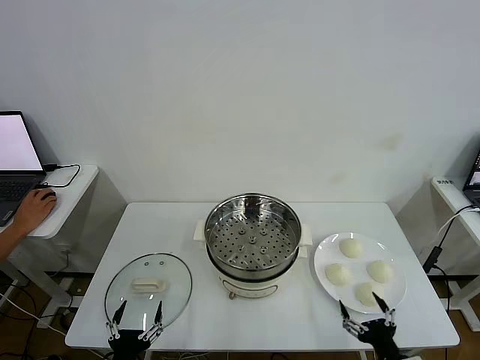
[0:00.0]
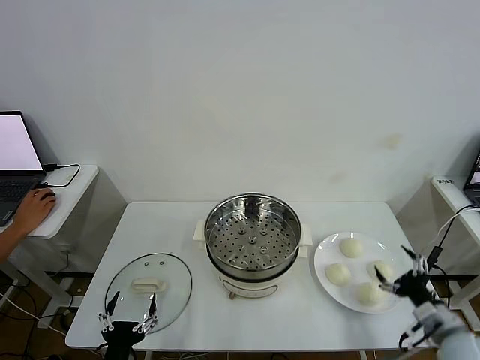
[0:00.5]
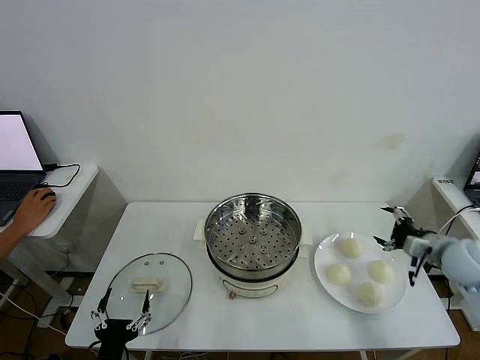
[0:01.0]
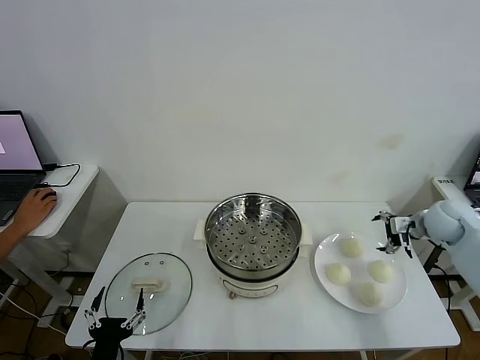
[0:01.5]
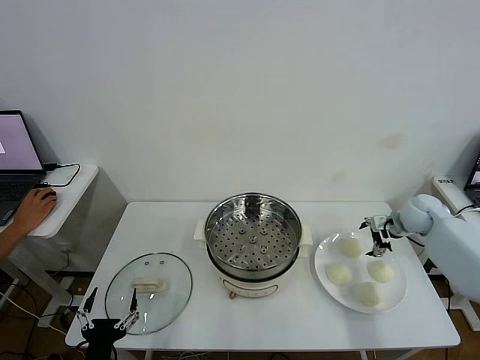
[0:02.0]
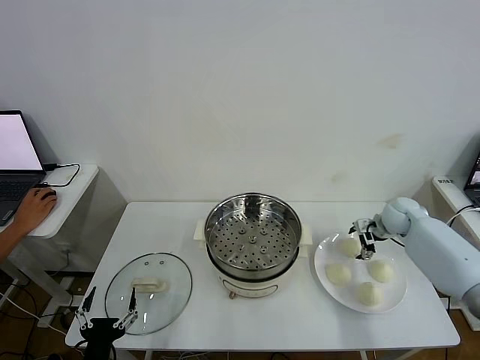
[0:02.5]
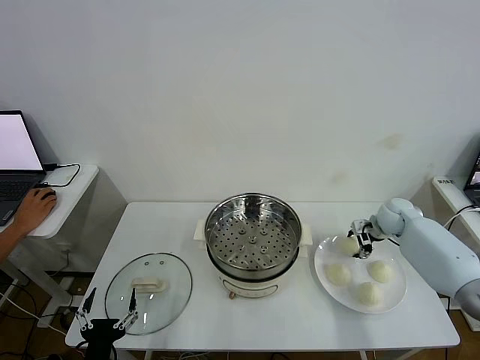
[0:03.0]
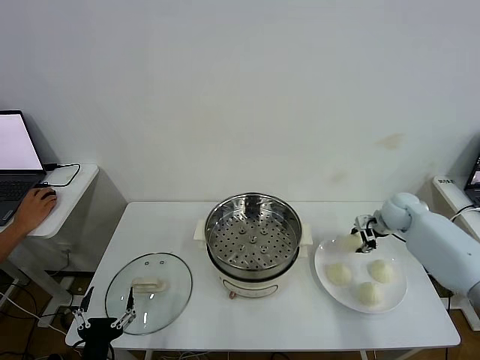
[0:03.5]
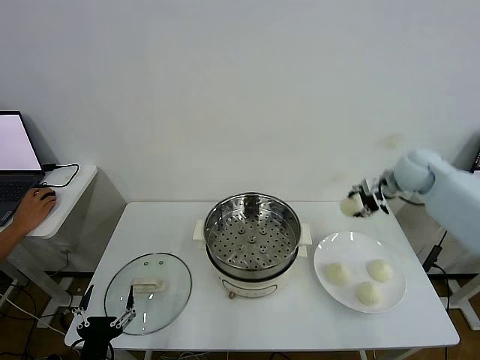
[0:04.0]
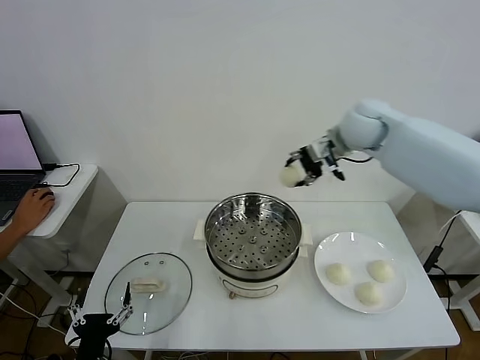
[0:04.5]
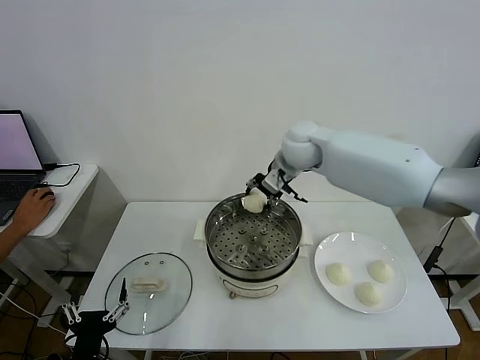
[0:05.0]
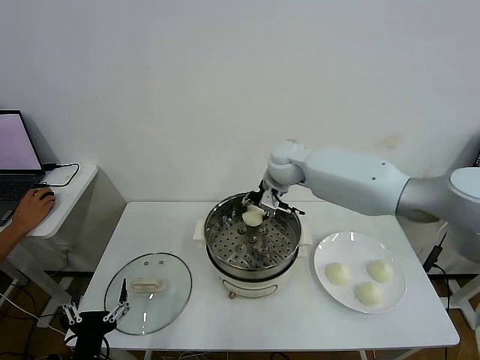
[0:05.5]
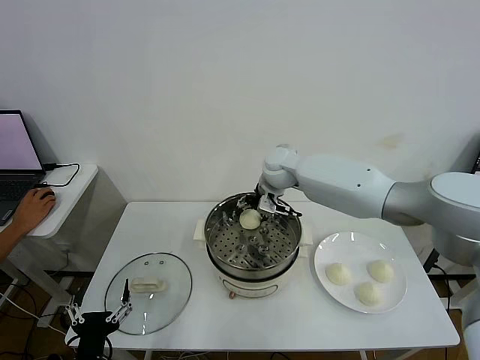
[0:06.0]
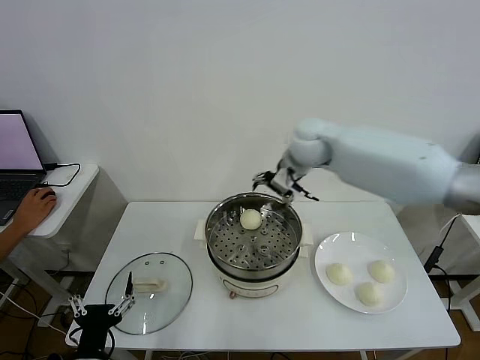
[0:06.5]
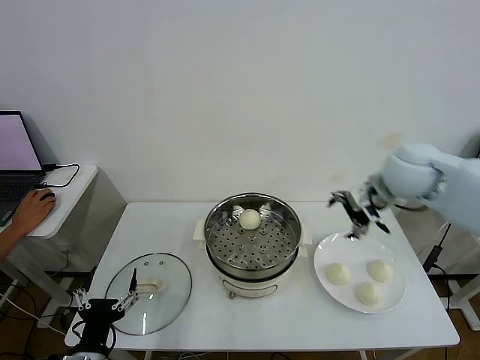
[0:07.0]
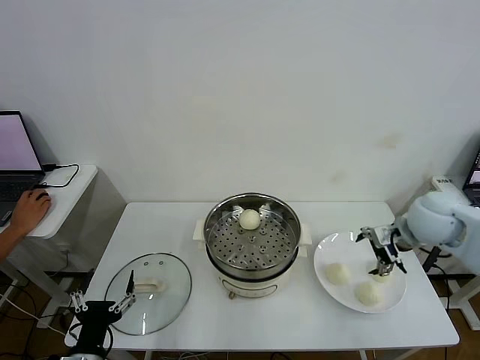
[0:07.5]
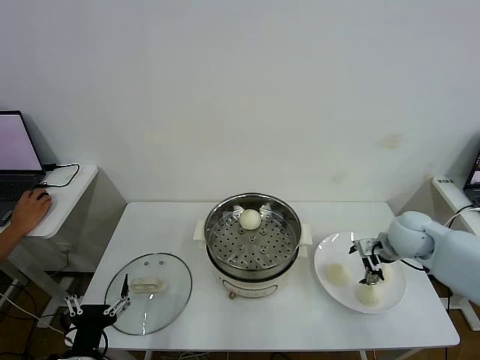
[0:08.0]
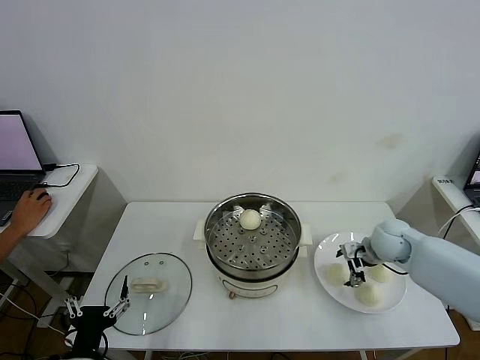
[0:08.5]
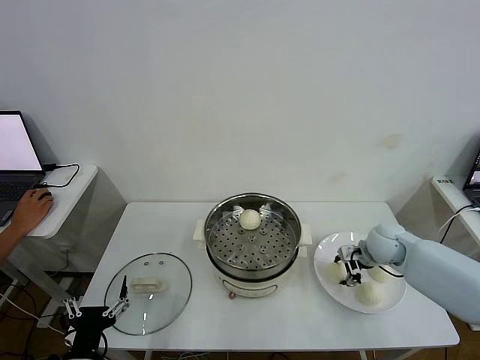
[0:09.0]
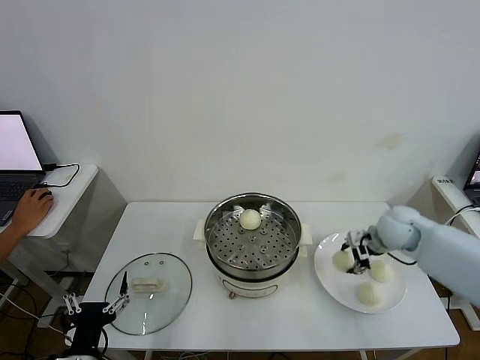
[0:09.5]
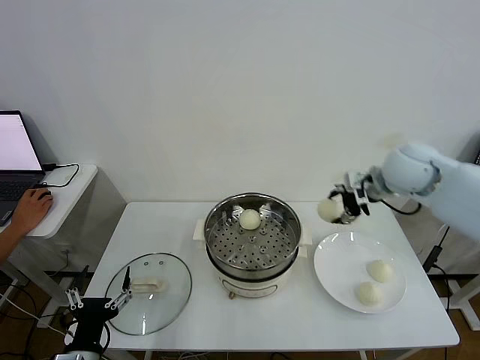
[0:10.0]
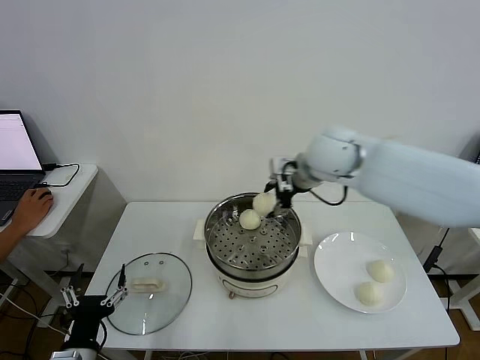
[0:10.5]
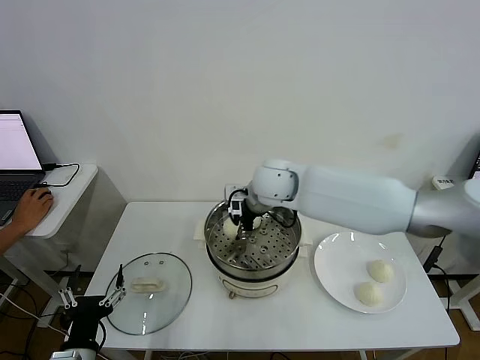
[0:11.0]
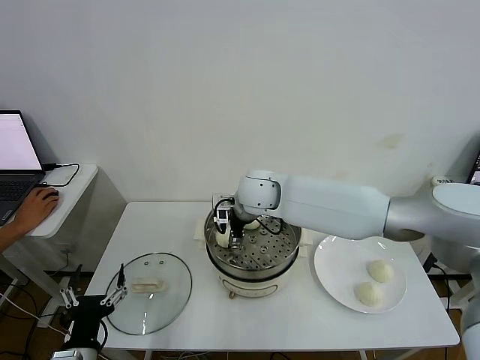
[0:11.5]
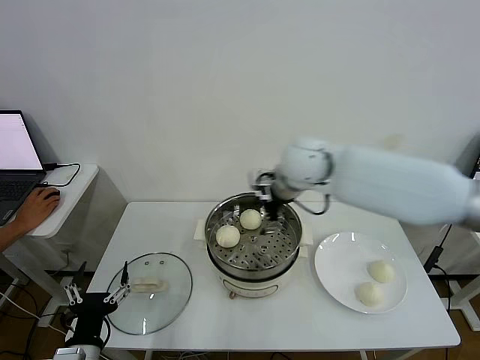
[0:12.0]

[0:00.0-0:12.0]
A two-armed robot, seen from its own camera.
Step, 0:00.0 to 0:03.0: Grasp the baozi in the plate with right gripper.
Step, 0:03.5 to 0:06.0: Place the baozi on the steamer with right gripper.
Step, 0:06.5 to 0:09.0: Grasp the baozi in the plate with right gripper.
Step, 0:09.5 to 0:11.5: Place the baozi on the steamer with right gripper.
0:02.0 to 0:04.0: The right gripper travels upward and to the left by roughly 20 cm, and closes its fingers.
0:04.0 to 0:06.0: The right gripper heads to the left, covering some 25 cm, and opens up.
0:06.0 to 0:08.0: The right gripper shifts some 30 cm to the right and backward.
0:08.0 to 0:10.0: The right gripper goes approximately 20 cm upward and to the left, and closes up.
0:10.0 to 0:12.0: The right gripper goes some 10 cm to the left, and opens.

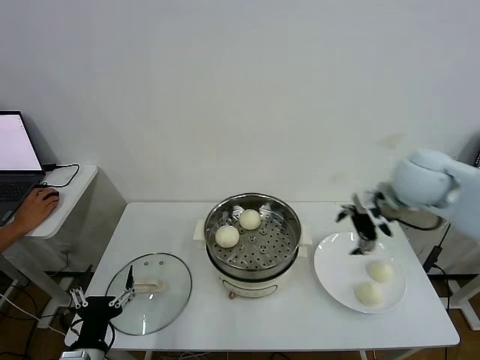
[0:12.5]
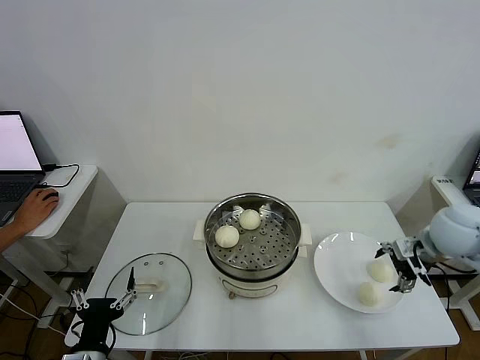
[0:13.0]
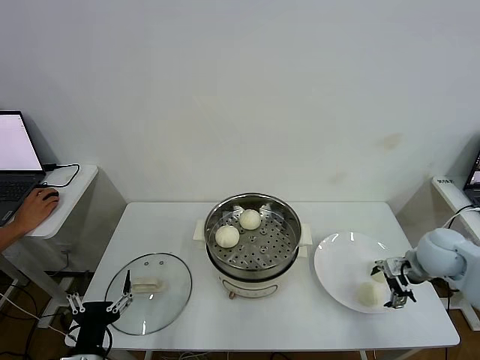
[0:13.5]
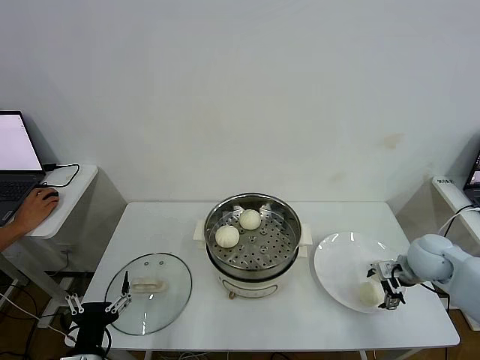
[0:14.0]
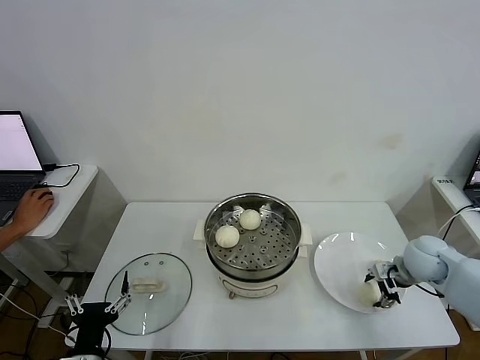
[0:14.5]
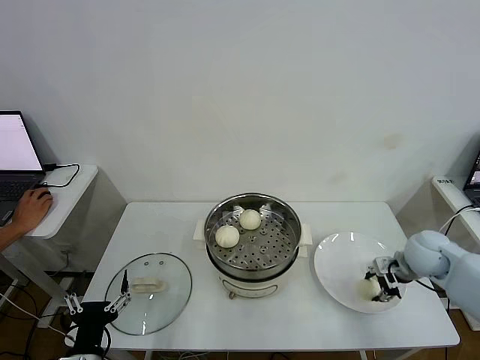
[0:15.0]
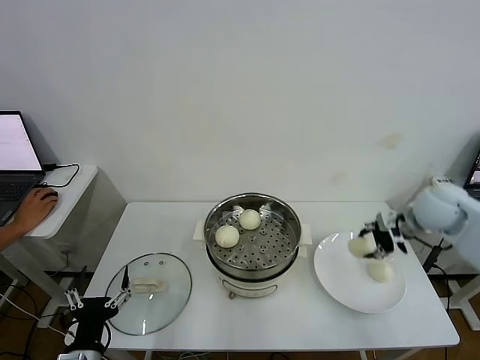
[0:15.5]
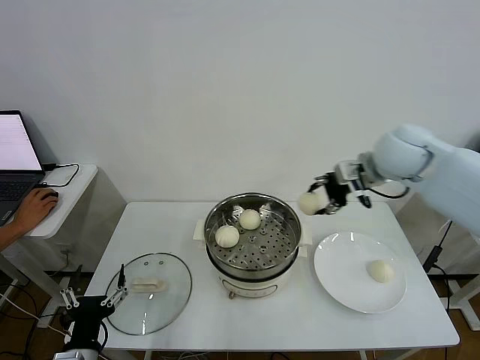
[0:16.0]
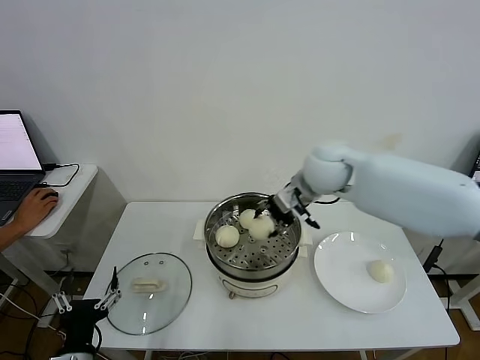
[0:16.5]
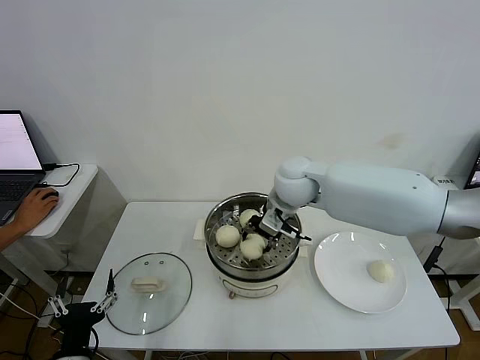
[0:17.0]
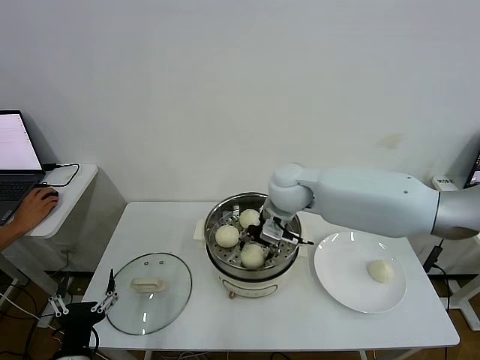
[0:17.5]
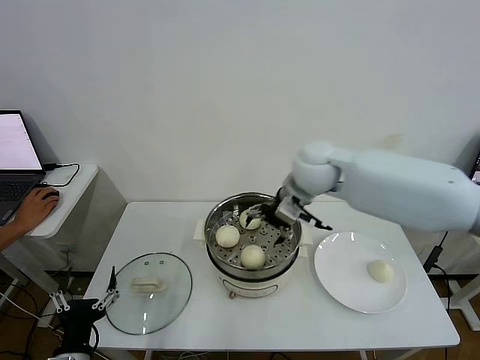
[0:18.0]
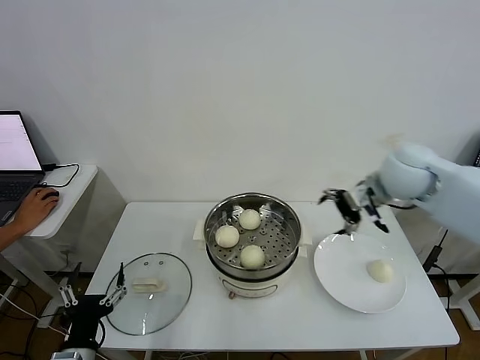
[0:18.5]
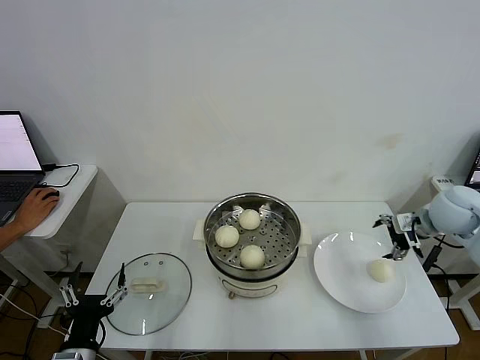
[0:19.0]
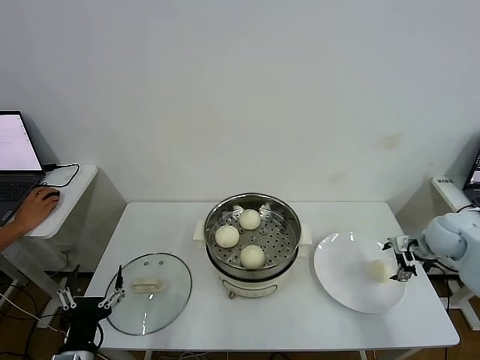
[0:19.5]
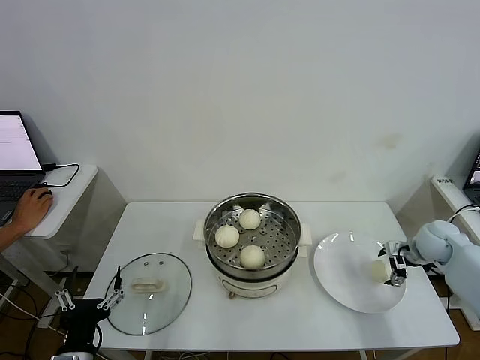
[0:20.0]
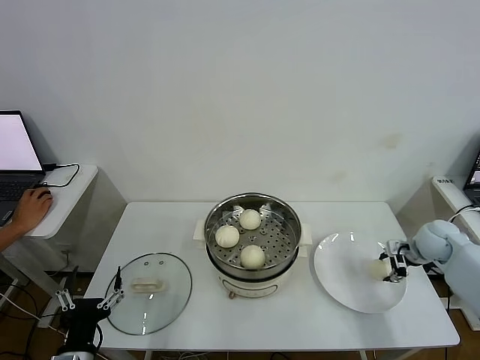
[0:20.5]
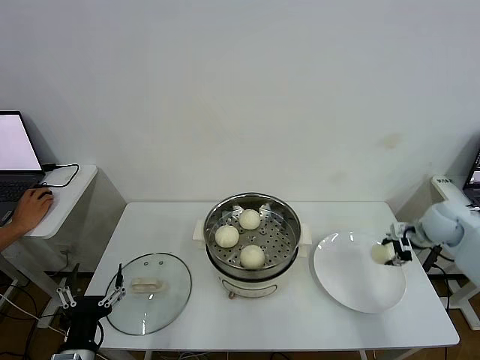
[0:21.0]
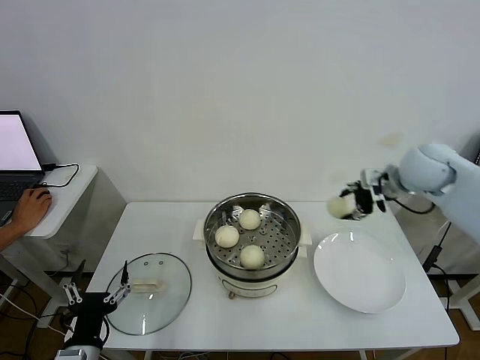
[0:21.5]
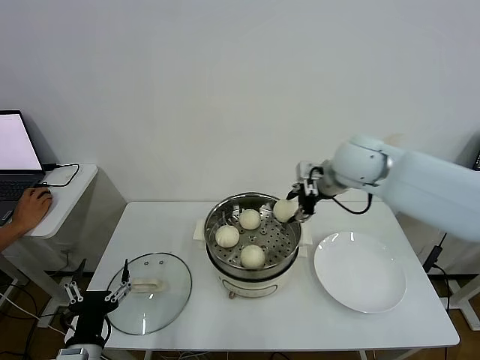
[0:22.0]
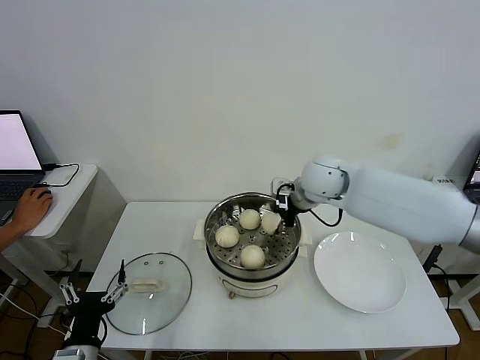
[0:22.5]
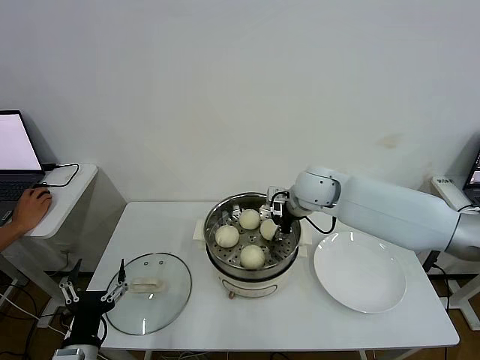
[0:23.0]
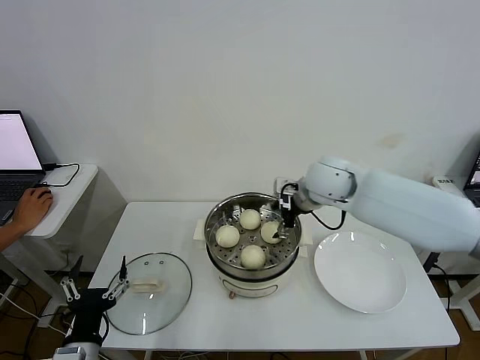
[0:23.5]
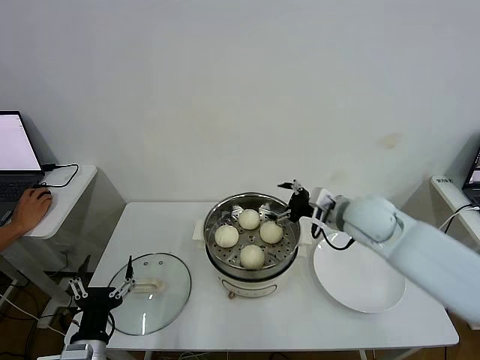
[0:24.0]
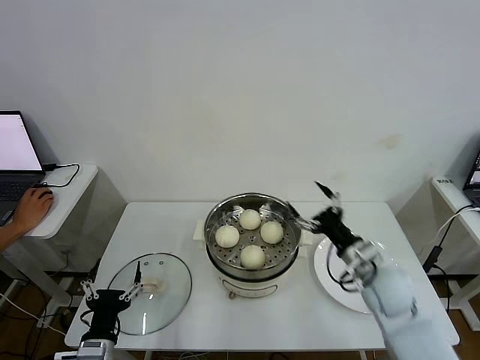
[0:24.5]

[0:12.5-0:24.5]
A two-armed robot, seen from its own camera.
Step, 0:12.5 to 0:14.5: Grasp the baozi in the plate with right gripper.
Step, 0:15.0 to 0:17.5: Place the baozi on the steamer with right gripper.
Step, 0:18.0 to 0:20.0: Grasp the baozi in the plate with right gripper.
Step, 0:20.5 to 0:23.0: Place the baozi on the steamer with right gripper.
0:12.5 to 0:14.5: The right gripper goes about 20 cm downward, and closes.
0:14.5 to 0:16.5: The right gripper travels to the left and upward by about 30 cm.
0:16.5 to 0:18.5: The right gripper heads to the right, covering about 20 cm, and opens up.
0:18.5 to 0:20.5: The right gripper goes some 25 cm downward and to the right, and closes.
0:20.5 to 0:22.5: The right gripper is displaced to the left and upward by roughly 35 cm.
0:22.5 to 0:24.5: The right gripper goes about 25 cm backward, downward and to the right, and opens.

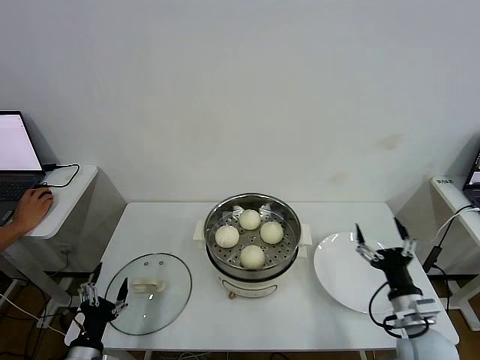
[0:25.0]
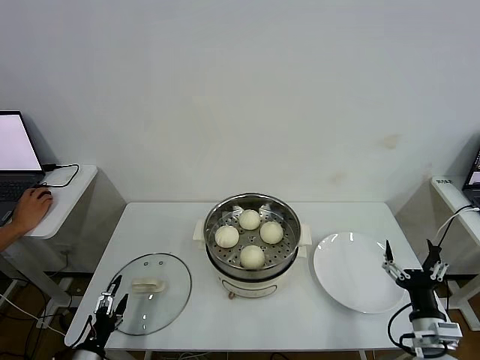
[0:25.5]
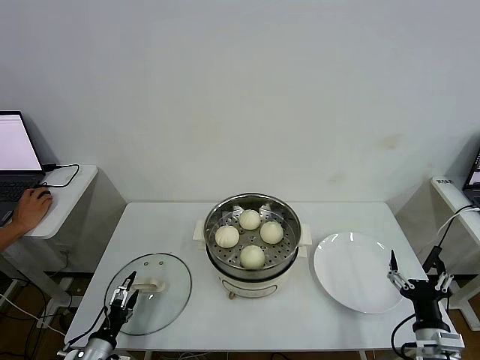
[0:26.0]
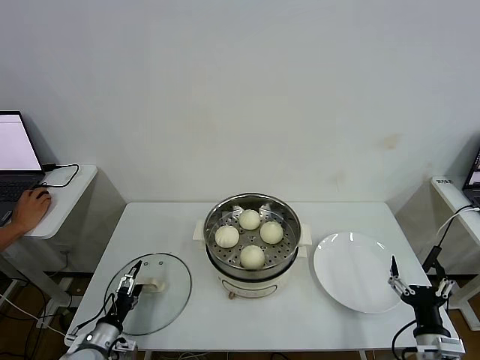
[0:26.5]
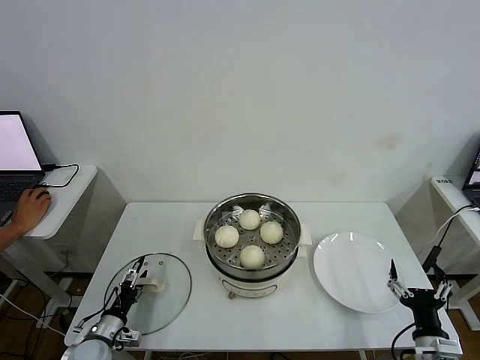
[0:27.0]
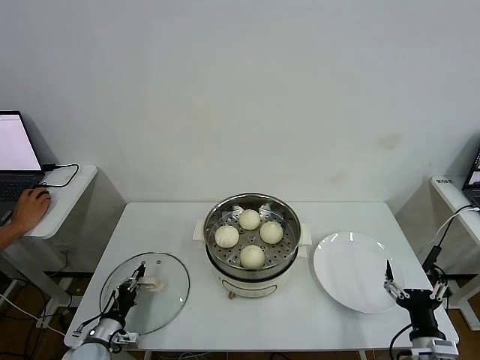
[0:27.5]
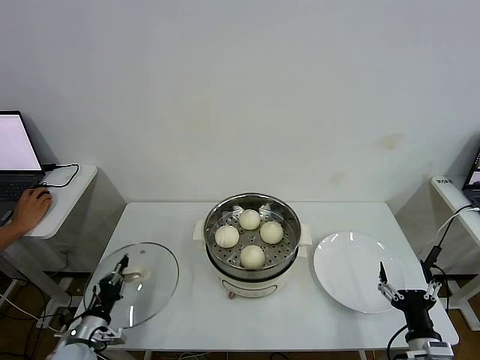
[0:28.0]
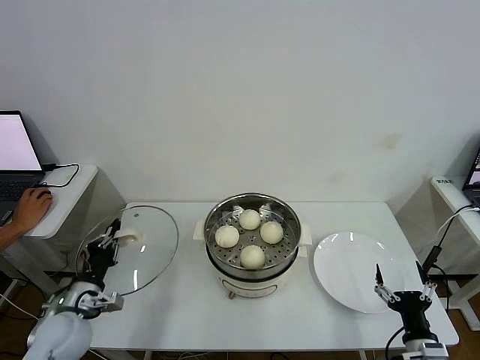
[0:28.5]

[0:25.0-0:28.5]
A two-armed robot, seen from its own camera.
Step, 0:25.0 to 0:27.5: Grasp the pot lid with left gripper.
0:25.0 to 0:27.0: The left gripper is displaced forward and downward by about 10 cm. Meanwhile the right gripper goes about 5 cm backward.
0:27.0 to 0:28.5: The left gripper moves upward, approximately 15 cm, and closes.
